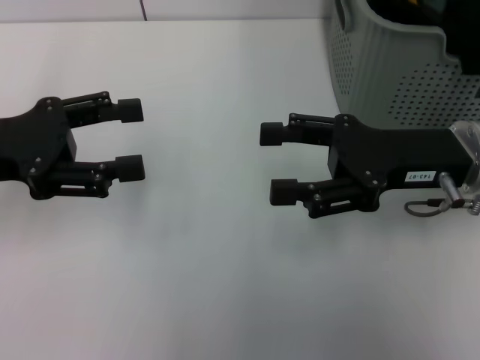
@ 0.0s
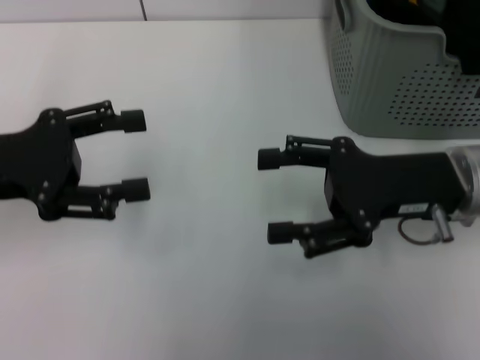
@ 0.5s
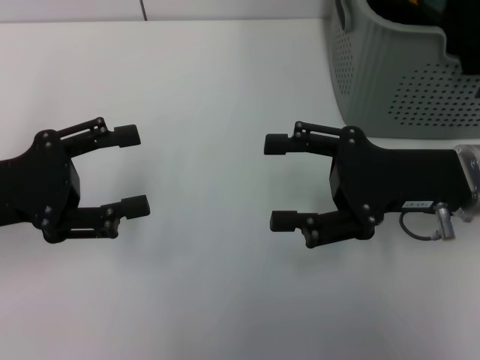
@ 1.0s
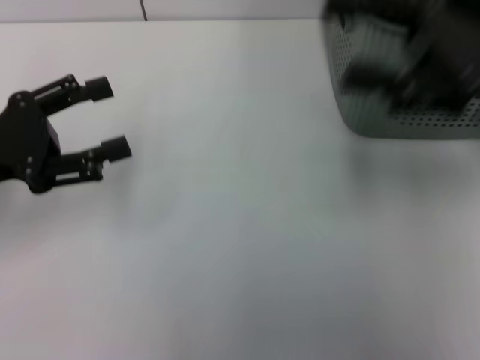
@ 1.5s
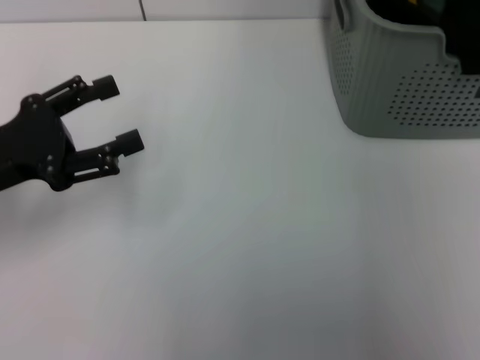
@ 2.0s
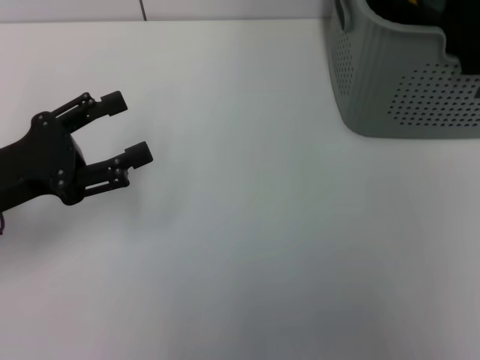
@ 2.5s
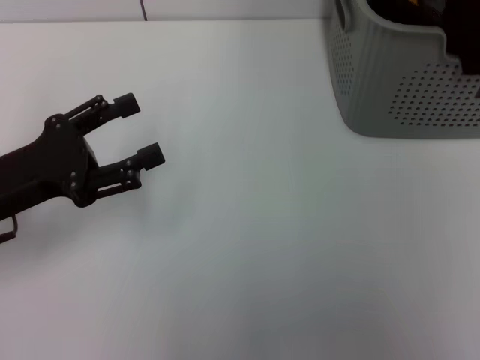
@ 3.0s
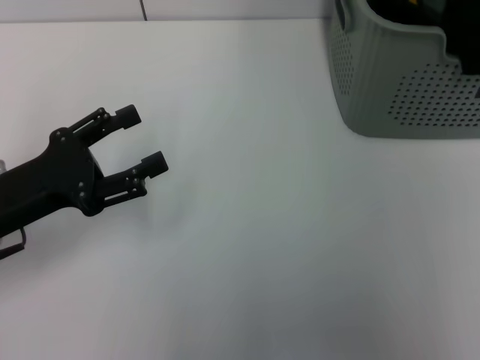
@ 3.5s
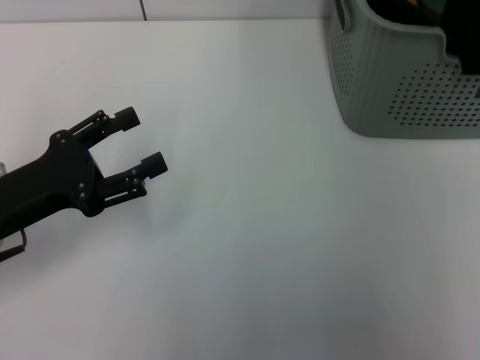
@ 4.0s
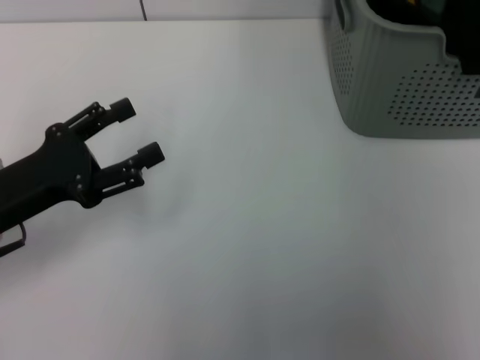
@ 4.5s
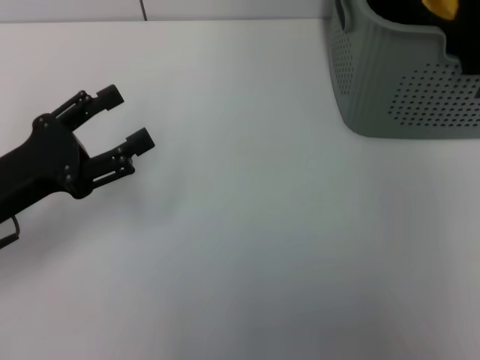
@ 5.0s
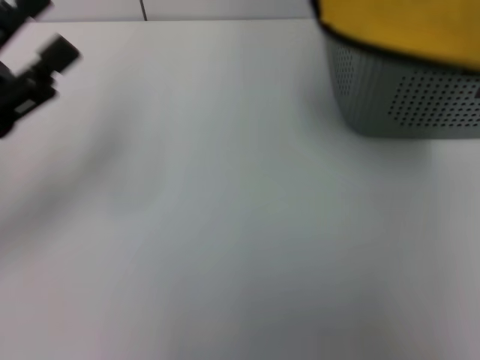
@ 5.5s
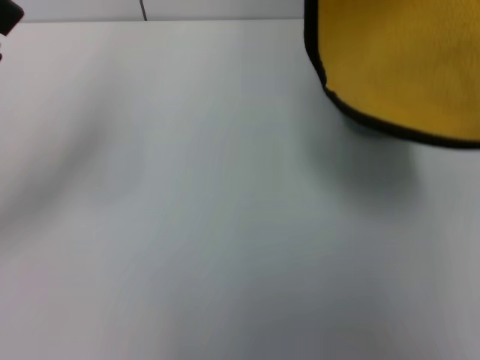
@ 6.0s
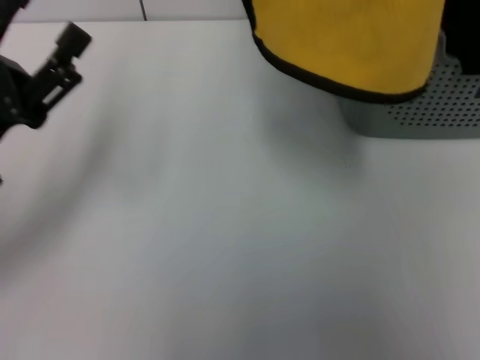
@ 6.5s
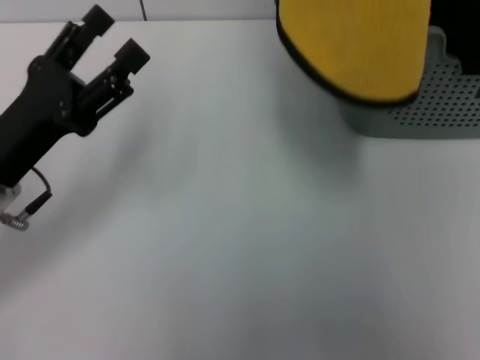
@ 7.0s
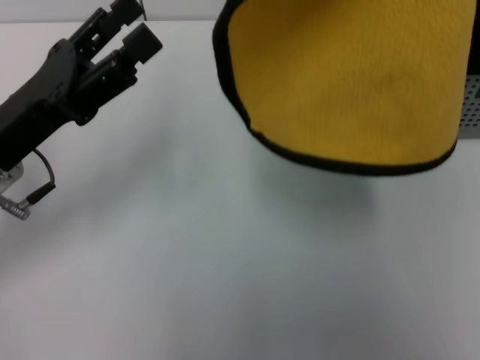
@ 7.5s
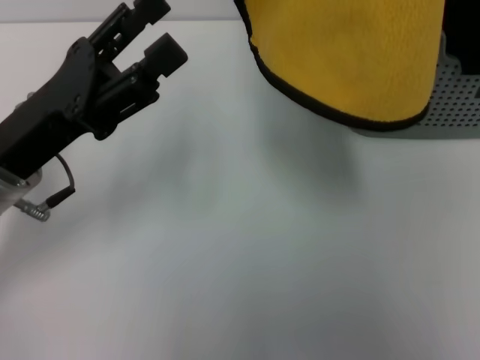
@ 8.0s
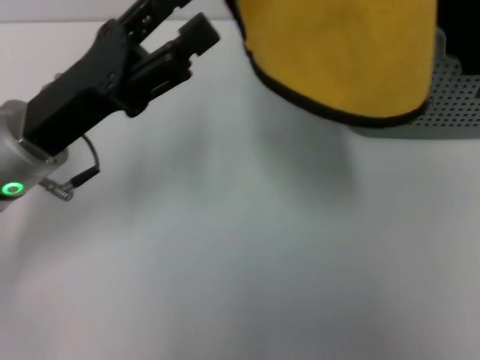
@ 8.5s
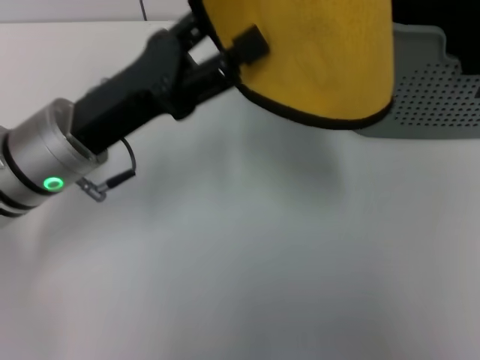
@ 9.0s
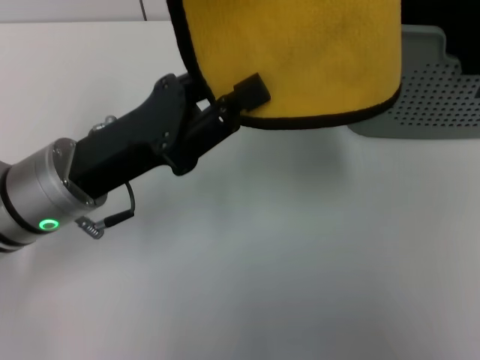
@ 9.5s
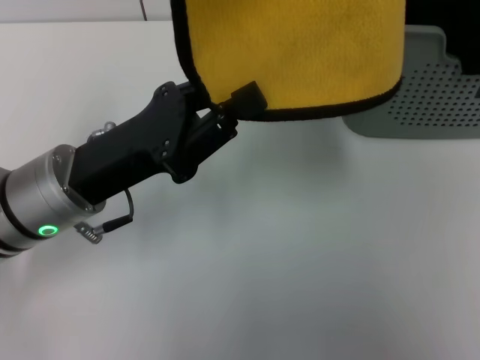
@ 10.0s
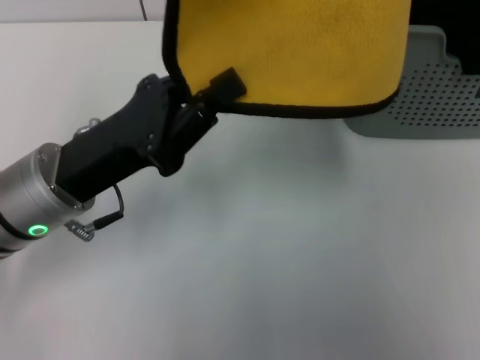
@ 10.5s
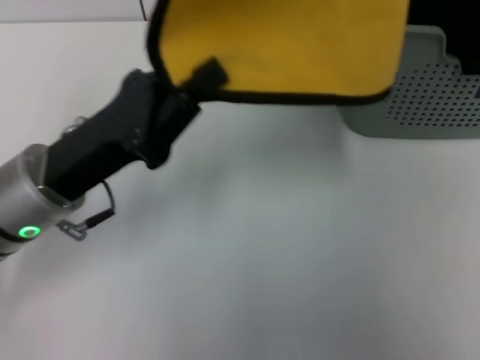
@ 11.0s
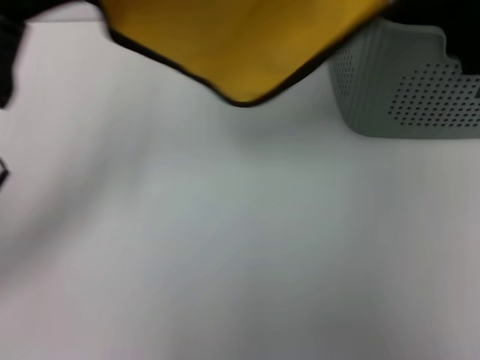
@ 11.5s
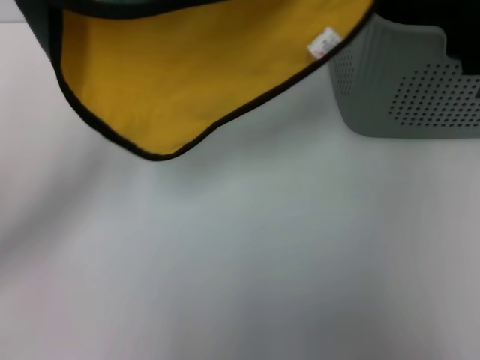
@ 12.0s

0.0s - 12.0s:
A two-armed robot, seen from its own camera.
Task of the whole recording: pick up the towel from the storage box and lay it flat on the table.
Step, 0.0s - 4.0s: Pick up a towel with the right gripper.
Step, 5.0s - 10.5s: Spread the towel flat with the right gripper.
0.0s - 2.0s: The right gripper moves upward and to the right, about 25 cm.
4.0s - 6.0s: The left gripper moves upward, about 5 cm. Meanwhile the right gripper travels upward and backward by about 15 cm.
6.0s - 8.0s: The right gripper shifts roughly 5 cm to the left. Meanwhile the left gripper travels to the right by about 10 cm.
8.0s - 10.0s: The left gripper closes its fingers.
10.0s - 12.0s: The right gripper heads downward, covering about 15 cm, while the left gripper shifts roughly 10 cm to the left.

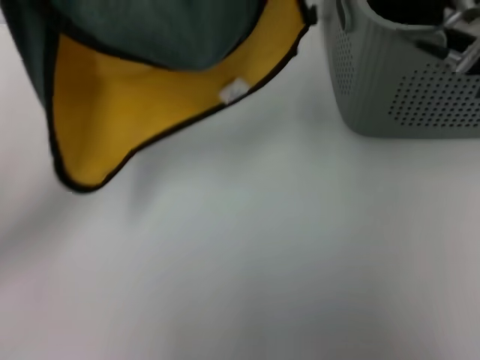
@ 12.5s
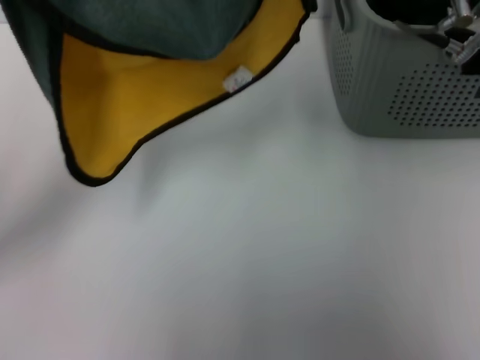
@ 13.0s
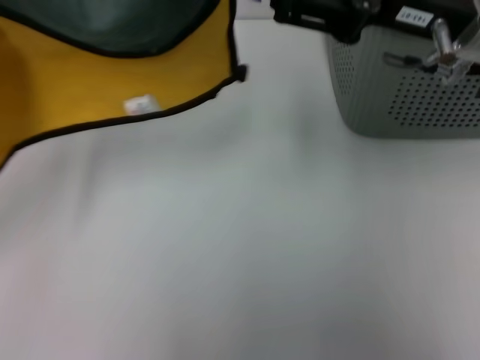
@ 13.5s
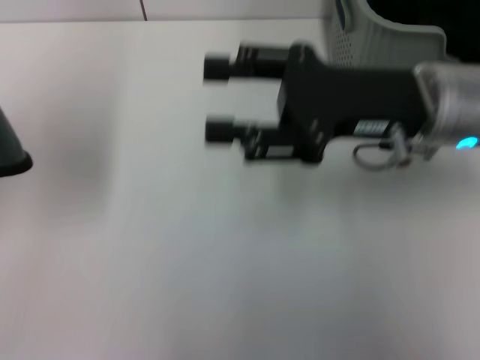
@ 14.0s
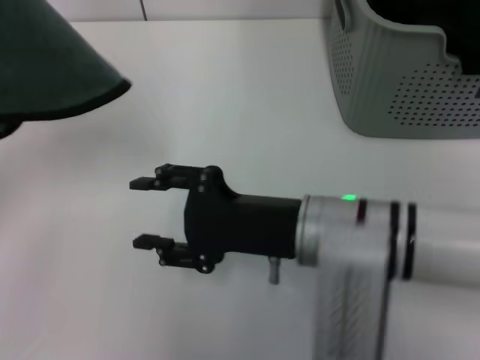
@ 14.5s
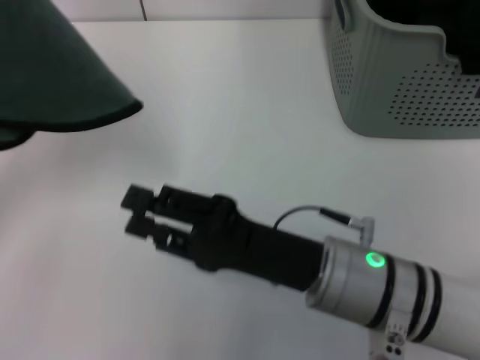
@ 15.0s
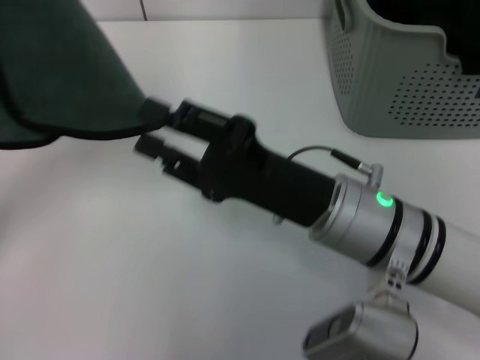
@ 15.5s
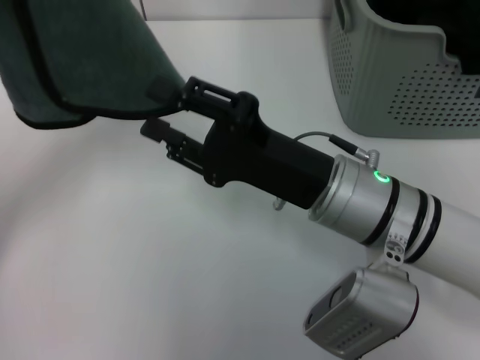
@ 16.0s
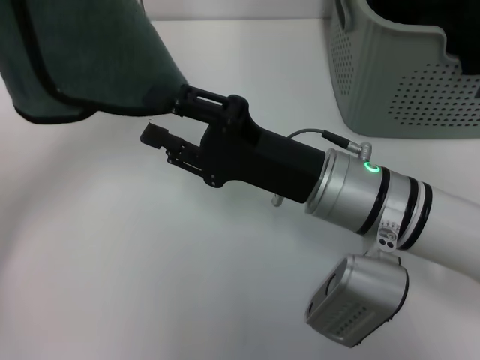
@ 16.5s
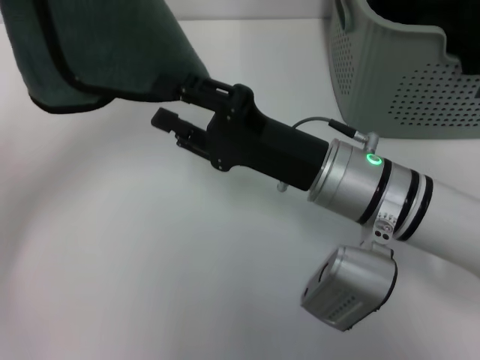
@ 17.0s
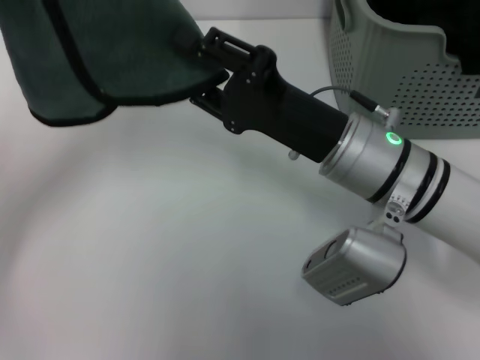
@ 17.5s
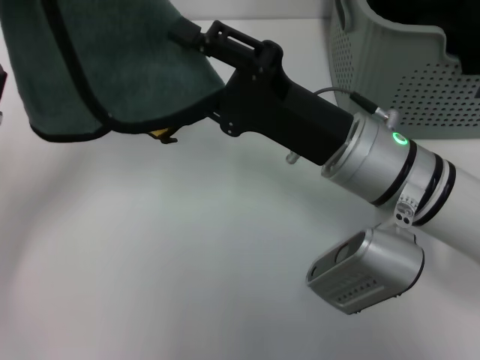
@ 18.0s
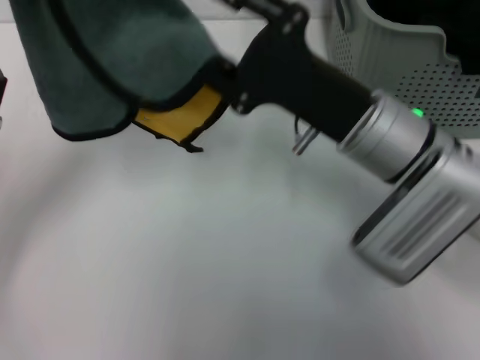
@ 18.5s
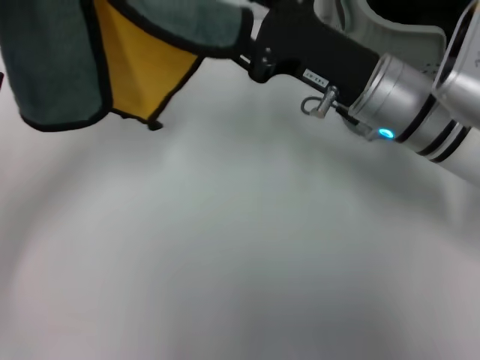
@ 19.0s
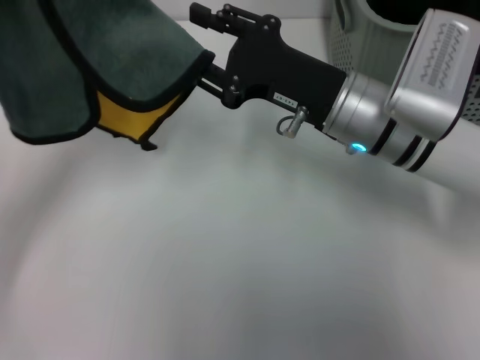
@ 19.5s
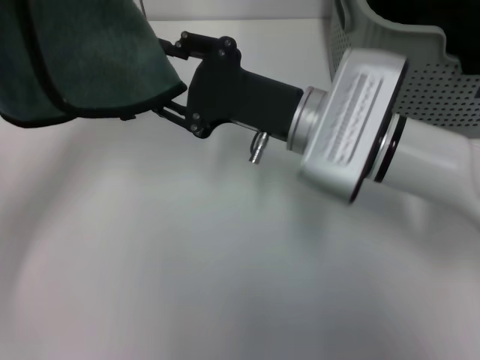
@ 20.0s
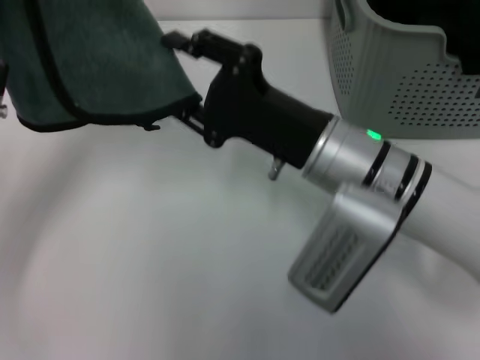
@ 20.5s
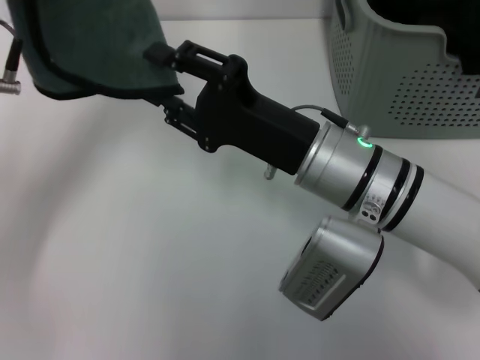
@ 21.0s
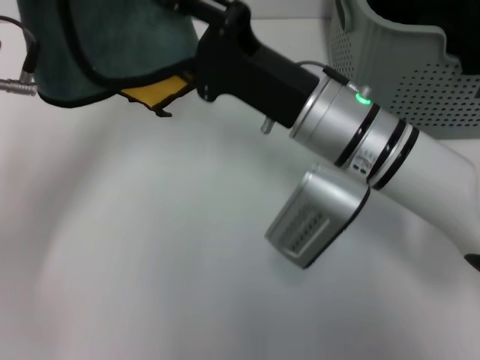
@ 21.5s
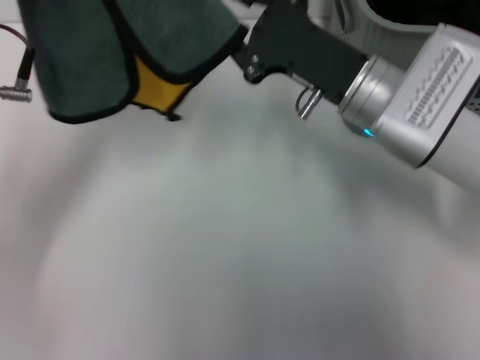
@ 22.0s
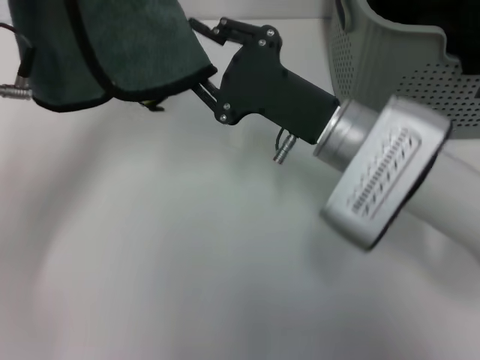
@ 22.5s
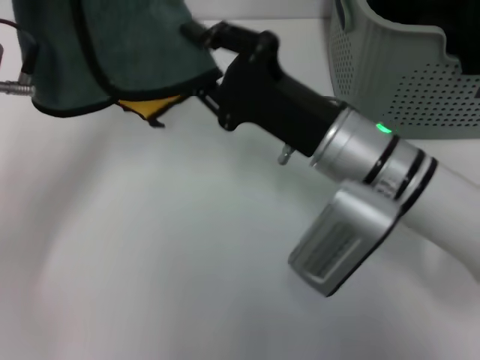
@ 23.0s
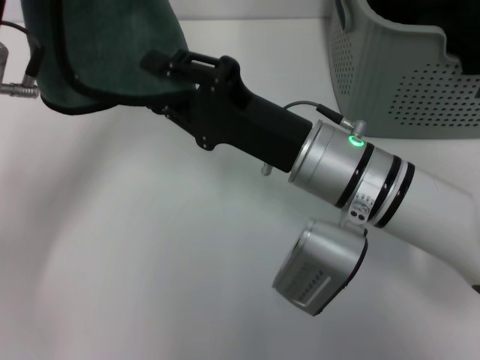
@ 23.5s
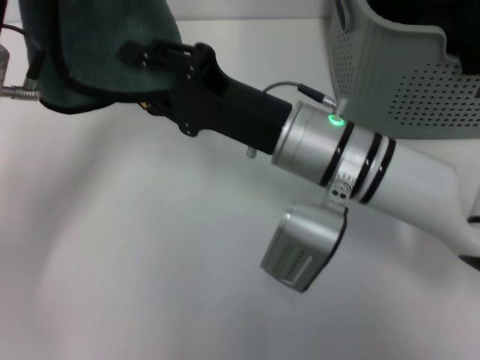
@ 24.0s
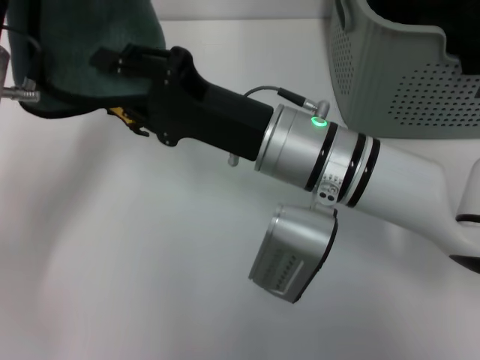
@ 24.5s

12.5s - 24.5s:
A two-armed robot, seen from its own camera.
Task of the whole recording: pick up the towel from the storage box and lay it flat on the table.
12.5s - 14.5s: The left gripper ends up approximately 5 cm from where it was. The right gripper shifts roughly 20 cm downward, backward and to the left, and opens up.
14.5s - 16.5s: The left gripper heads to the right, covering approximately 5 cm.
22.5s - 24.5s: The right gripper moves roughly 5 cm.

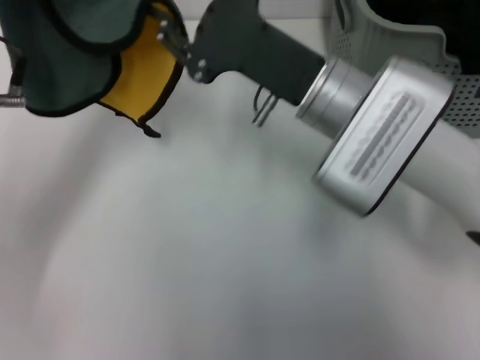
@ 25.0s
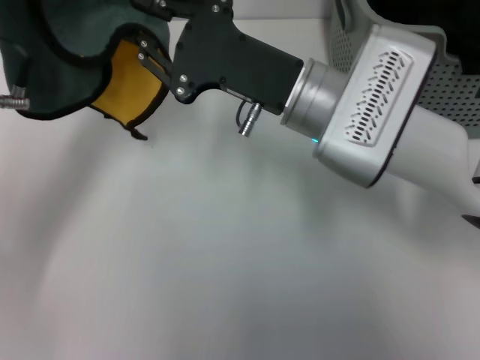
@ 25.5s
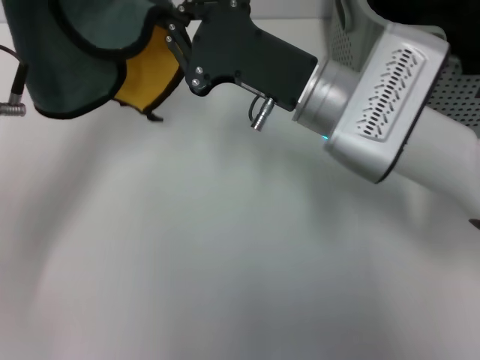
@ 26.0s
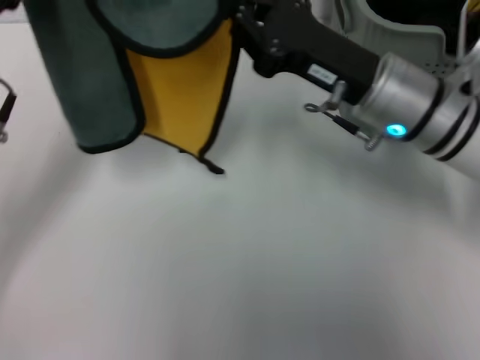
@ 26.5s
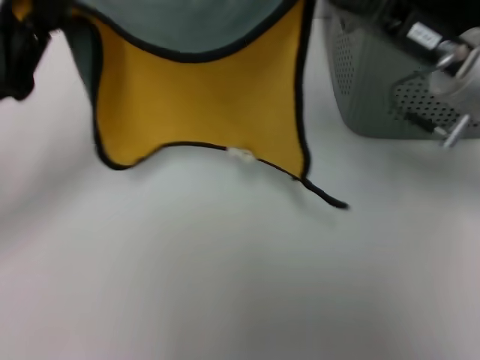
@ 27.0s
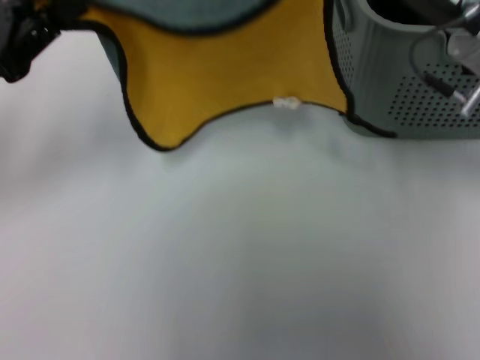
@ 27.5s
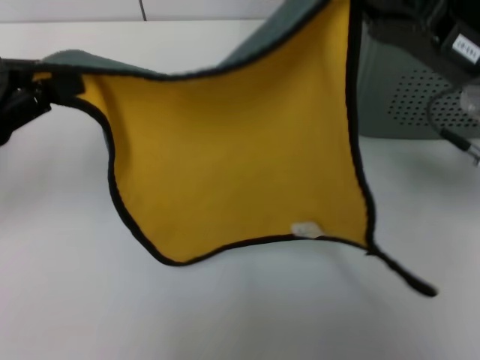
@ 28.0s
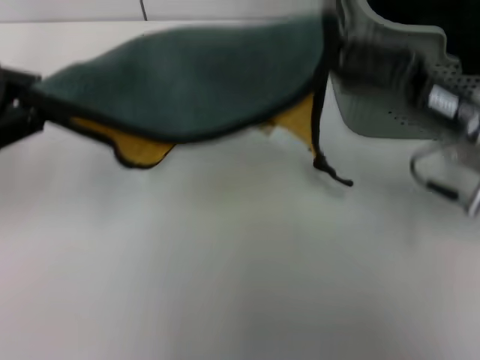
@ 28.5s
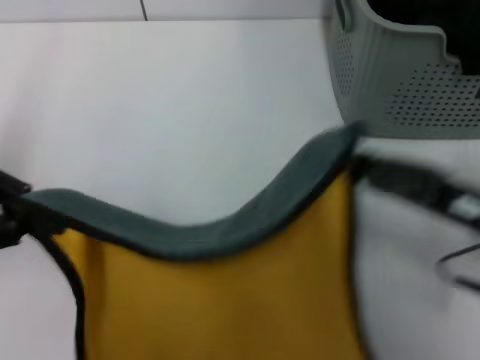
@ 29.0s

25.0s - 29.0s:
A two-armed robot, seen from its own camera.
Task of the whole recording: pick up the towel from the storage box and lay it flat on the table.
25.0s - 27.0s: The right gripper is displaced to the right by about 10 cm, and closes. The left gripper goes approximately 5 cm to the left.
27.0s - 29.0s: The left gripper goes roughly 10 cm upward, while the right gripper travels backward and downward by about 10 cm.
